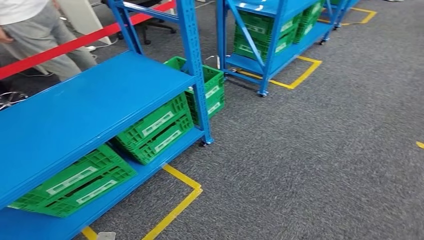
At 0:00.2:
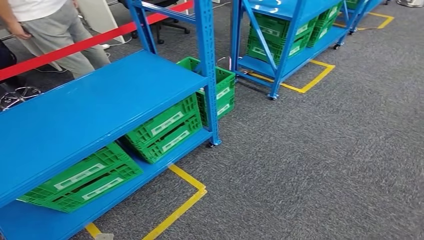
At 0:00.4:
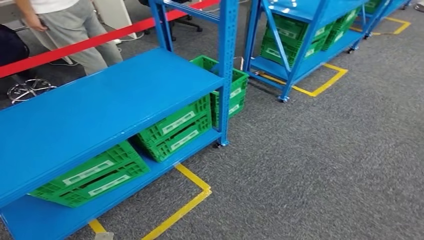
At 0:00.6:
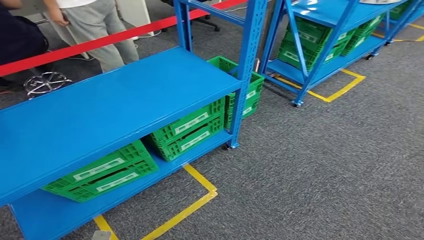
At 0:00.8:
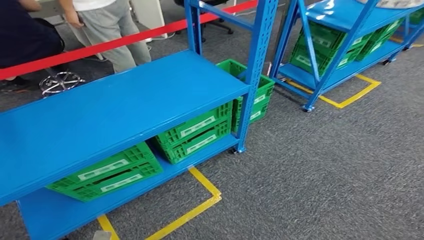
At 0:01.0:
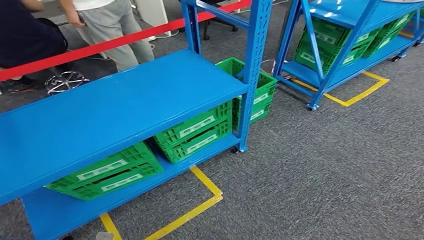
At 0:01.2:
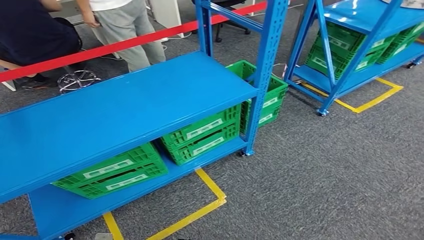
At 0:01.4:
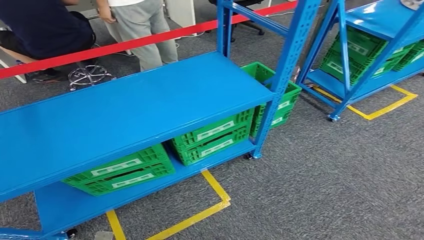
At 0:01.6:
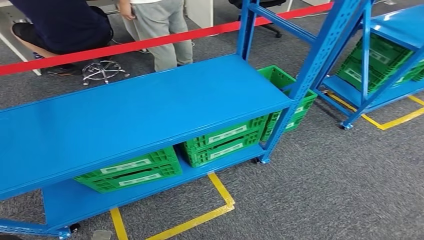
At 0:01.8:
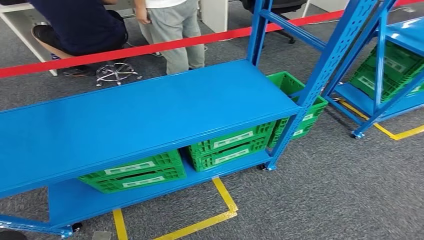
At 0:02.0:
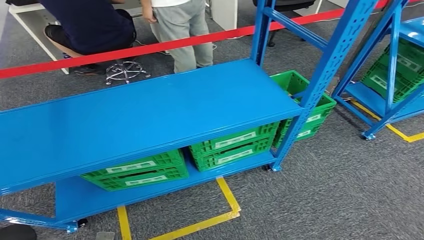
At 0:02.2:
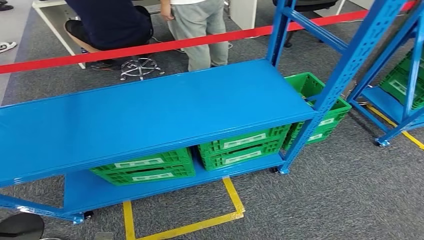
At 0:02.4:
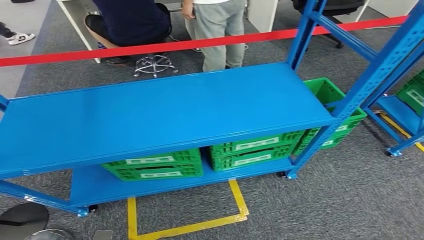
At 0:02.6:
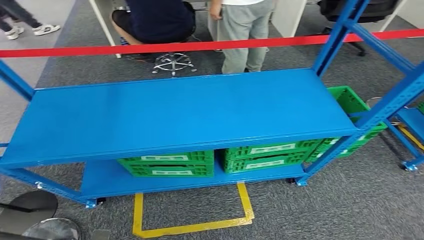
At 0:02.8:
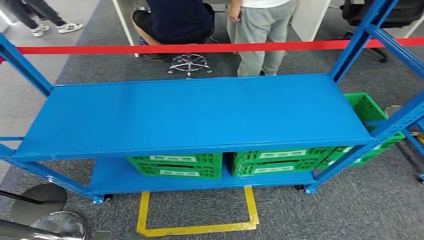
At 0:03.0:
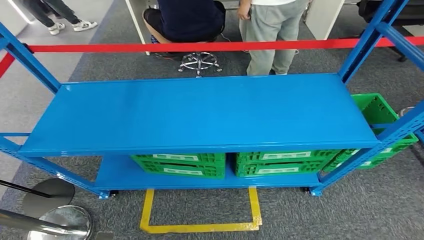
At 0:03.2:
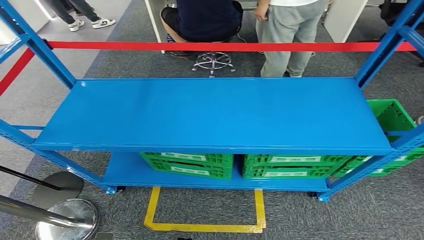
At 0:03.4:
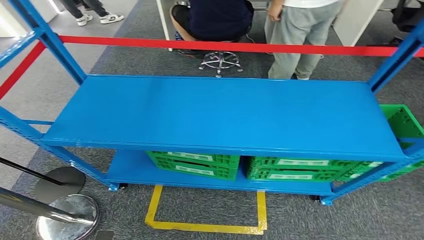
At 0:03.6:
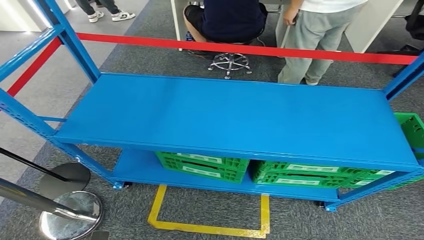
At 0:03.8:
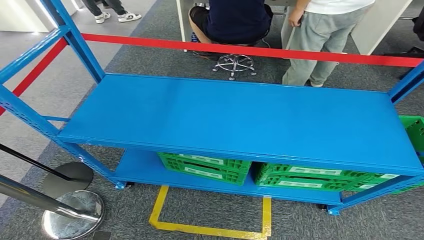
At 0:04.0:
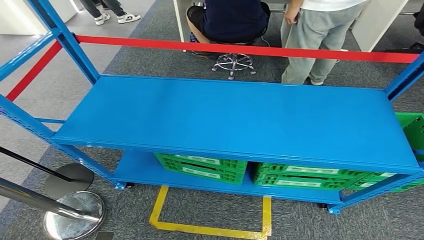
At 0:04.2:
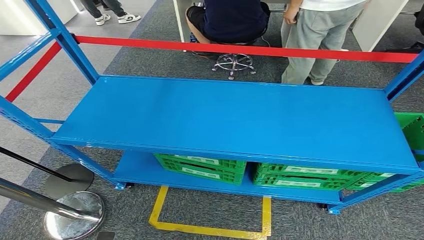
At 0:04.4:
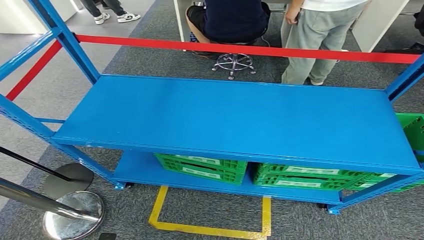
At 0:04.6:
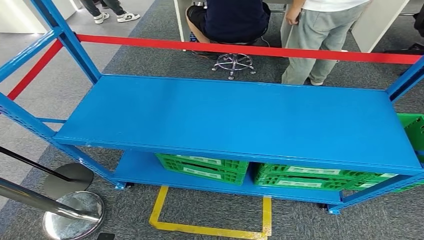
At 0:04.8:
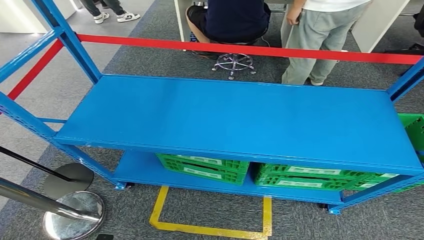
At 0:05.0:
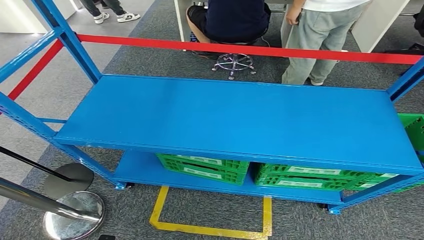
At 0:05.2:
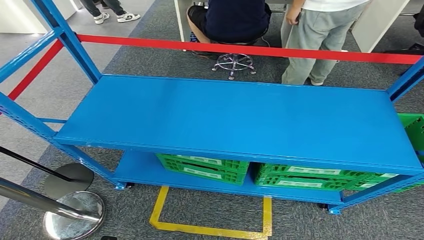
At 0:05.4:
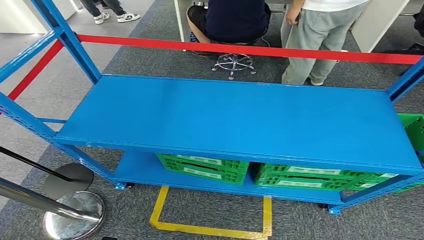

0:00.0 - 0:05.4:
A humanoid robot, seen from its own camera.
Step, 0:00.0 - 0:05.2: Move to the initial position of the workbench.
0:04.0 - 0:05.4: The hands make only small movements.
